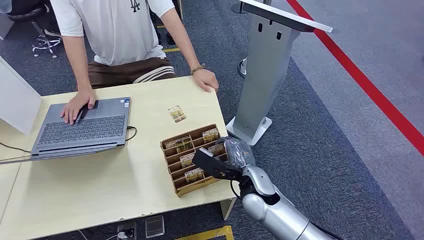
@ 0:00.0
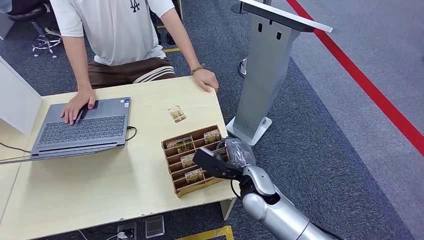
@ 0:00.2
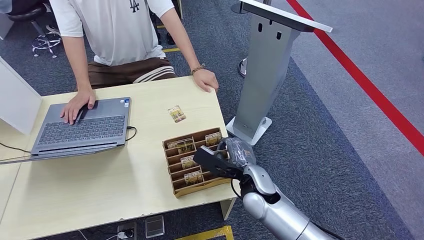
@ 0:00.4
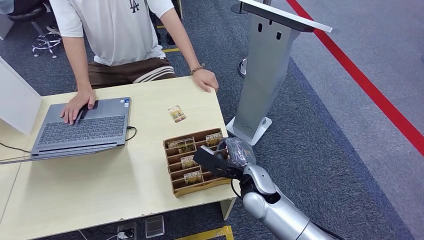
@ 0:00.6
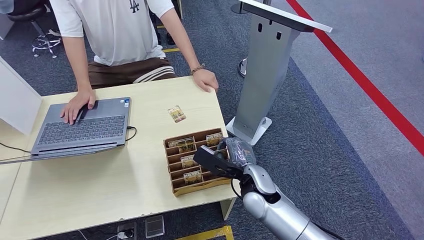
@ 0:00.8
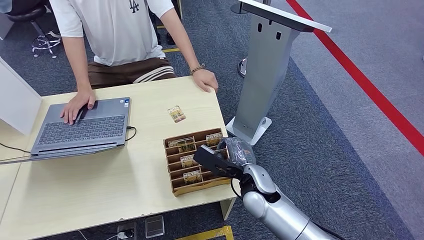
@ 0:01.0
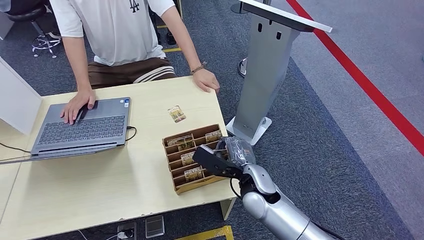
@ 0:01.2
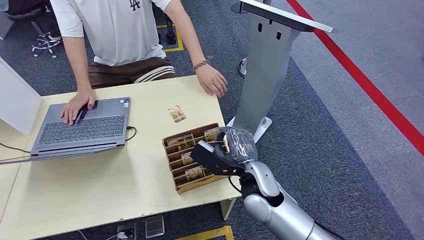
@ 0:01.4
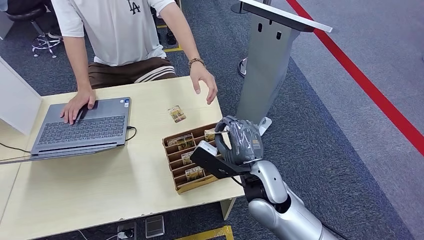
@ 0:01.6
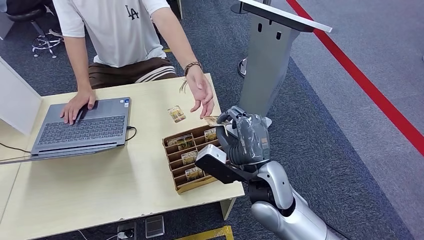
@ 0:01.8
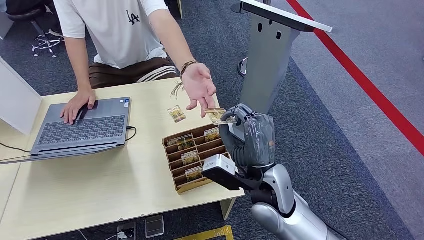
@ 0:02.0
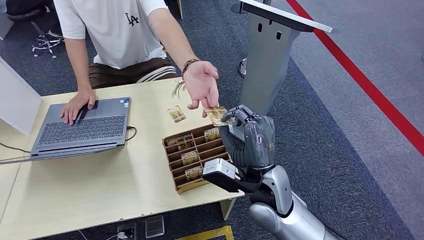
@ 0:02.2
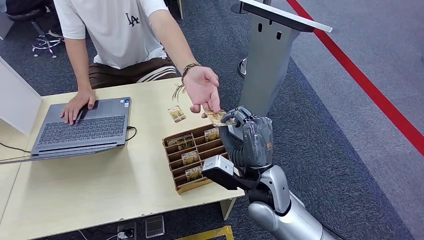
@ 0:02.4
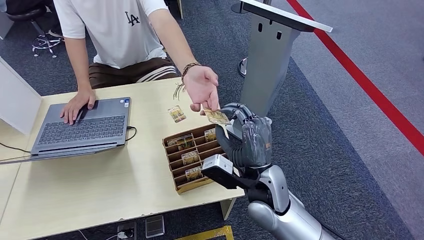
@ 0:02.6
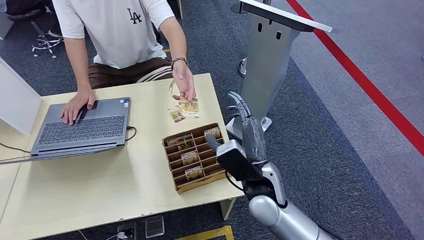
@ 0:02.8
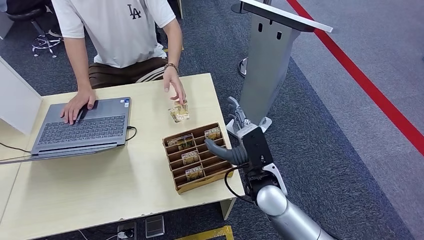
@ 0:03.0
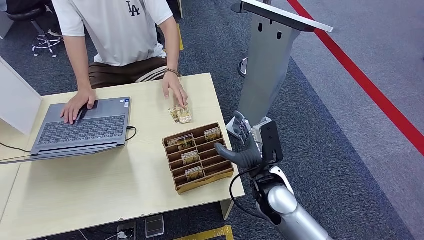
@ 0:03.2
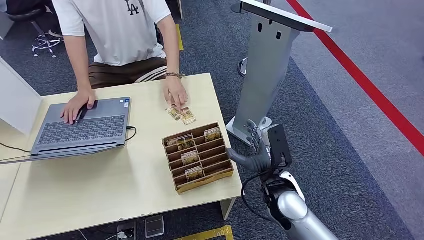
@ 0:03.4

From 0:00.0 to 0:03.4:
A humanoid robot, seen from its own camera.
Step, from 0:00.0 to 0:01.2: Pick up the key card from the card box.
Step, from 0:01.6 to 0:03.2: Hand the key card to the target.
From 0:01.6 to 0:03.4: The right hand heads to the right, covering roughly 5 cm.
